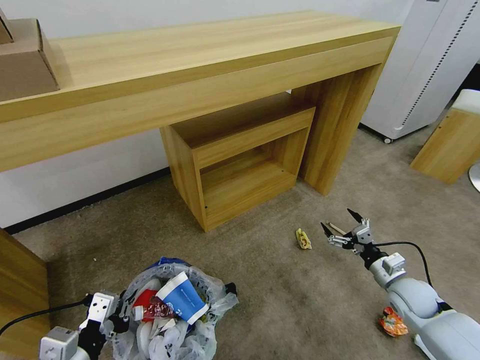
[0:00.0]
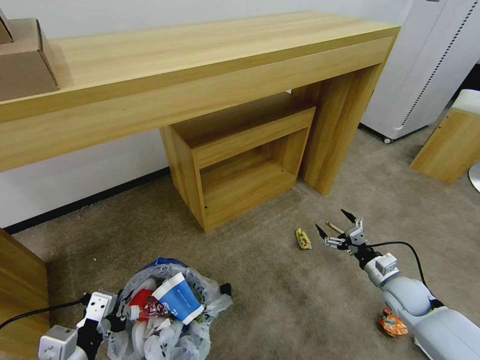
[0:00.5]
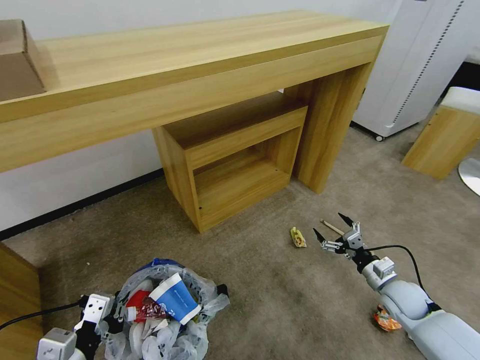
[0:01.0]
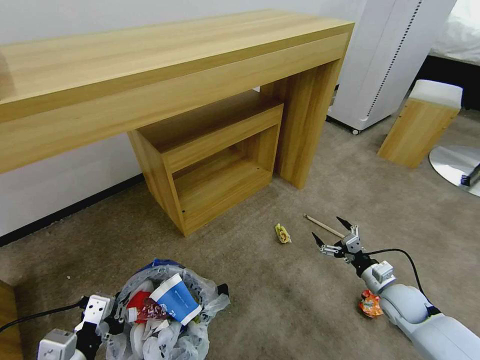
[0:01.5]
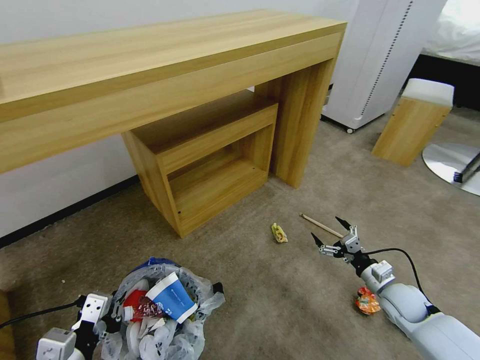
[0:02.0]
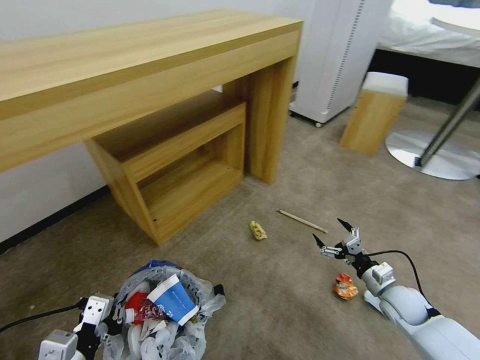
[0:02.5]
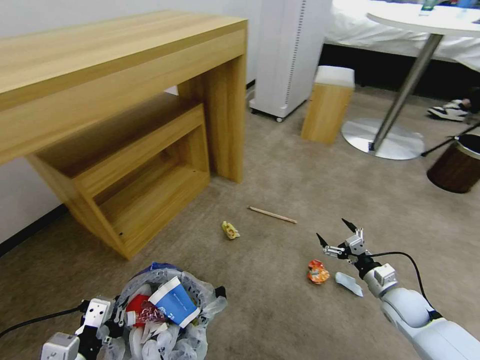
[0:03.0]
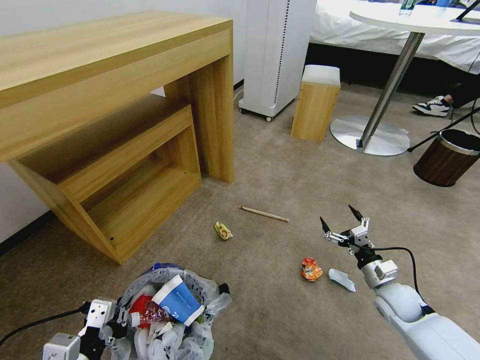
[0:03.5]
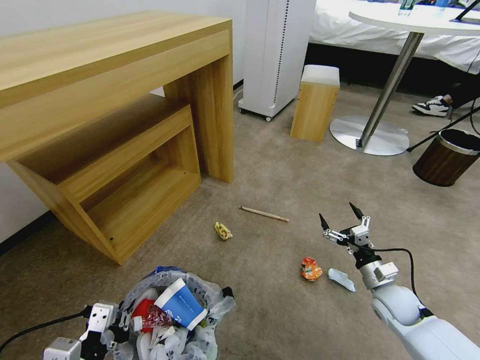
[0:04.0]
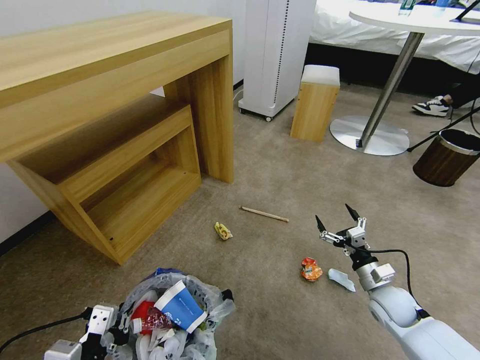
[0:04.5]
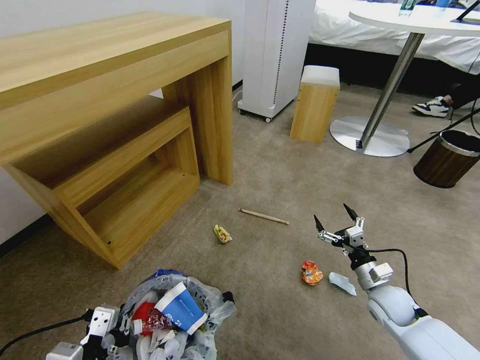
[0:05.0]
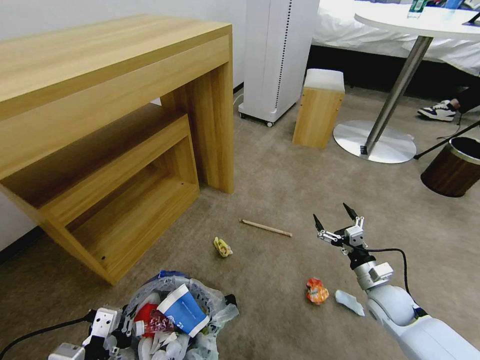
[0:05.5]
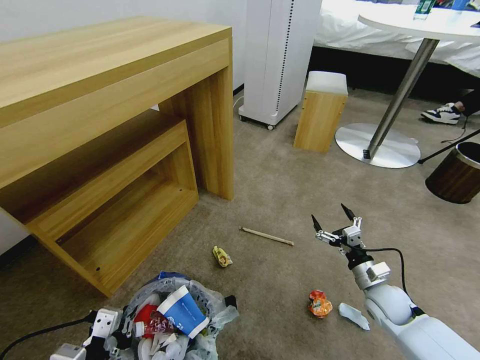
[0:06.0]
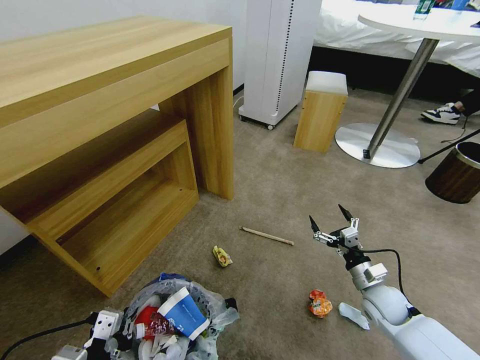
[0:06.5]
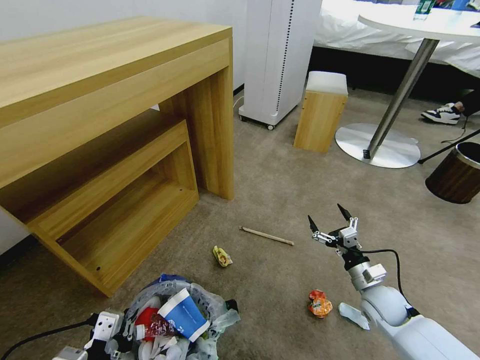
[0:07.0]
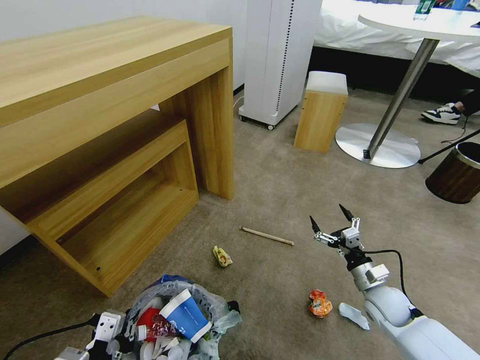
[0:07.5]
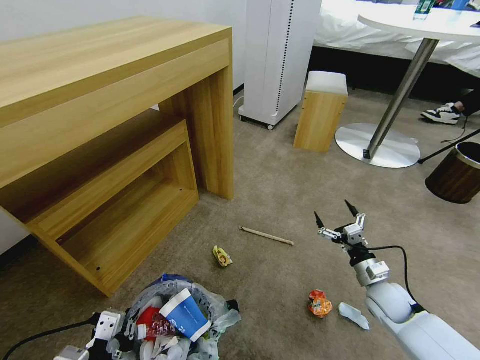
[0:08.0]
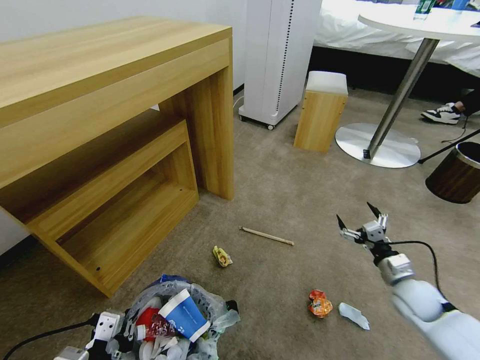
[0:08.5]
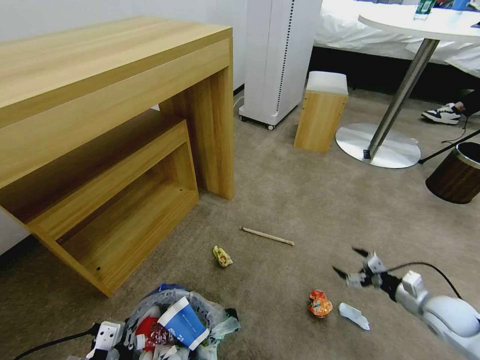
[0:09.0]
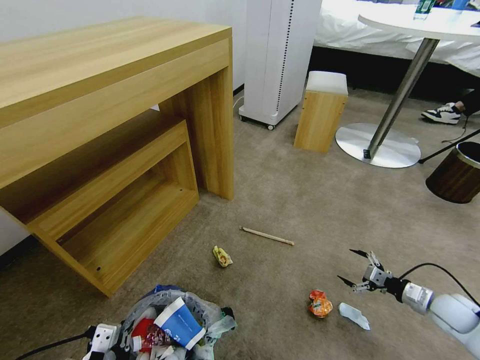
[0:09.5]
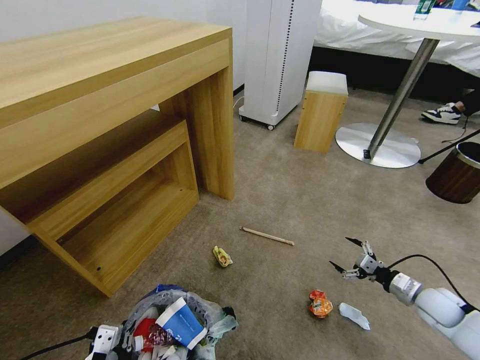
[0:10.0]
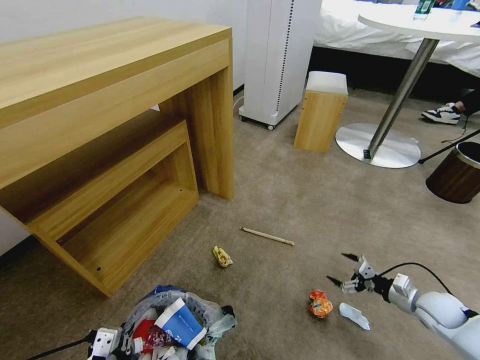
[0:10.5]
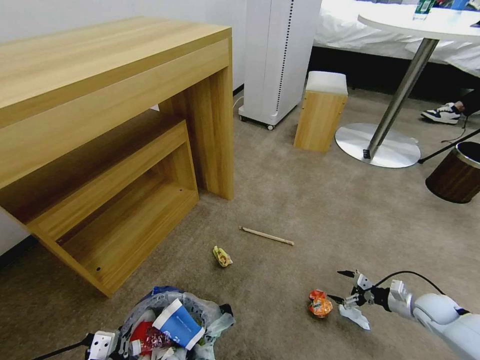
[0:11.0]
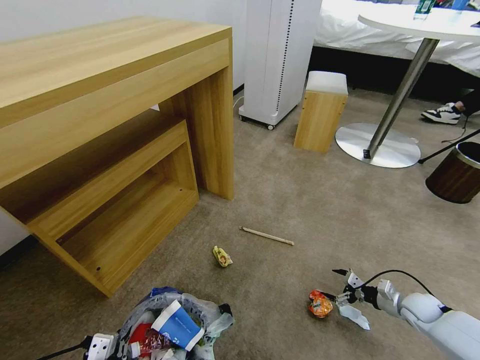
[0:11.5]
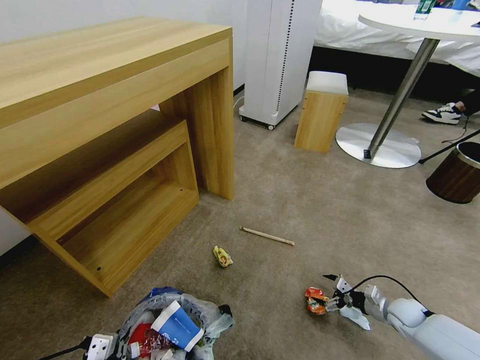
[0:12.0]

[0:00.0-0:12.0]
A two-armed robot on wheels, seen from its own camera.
Task of the whole recording: Pick up the trash bin and place the garbage on the floor into it.
0:06.0 to 0:08.0: The grippers move only a little.
0:08.0 to 0:10.0: The right gripper goes about 15 cm to the right.
0:10.0 to 0:12.0: The right gripper is displaced downward by about 10 cm.

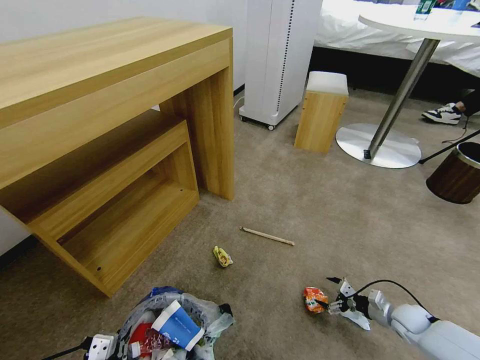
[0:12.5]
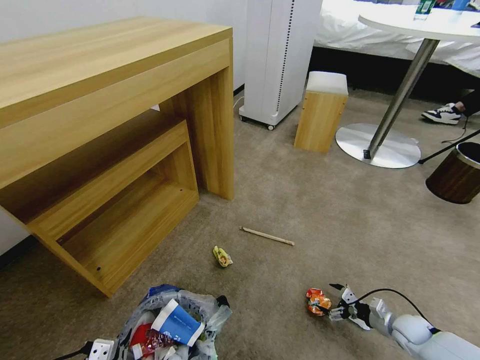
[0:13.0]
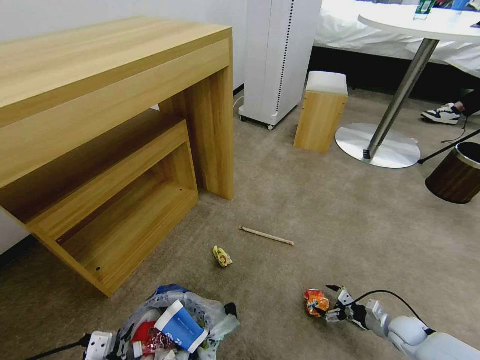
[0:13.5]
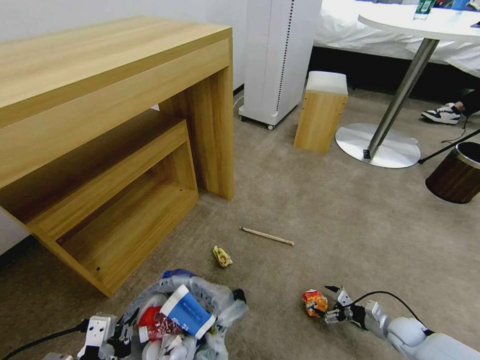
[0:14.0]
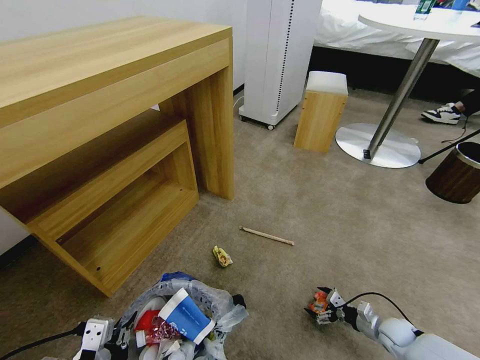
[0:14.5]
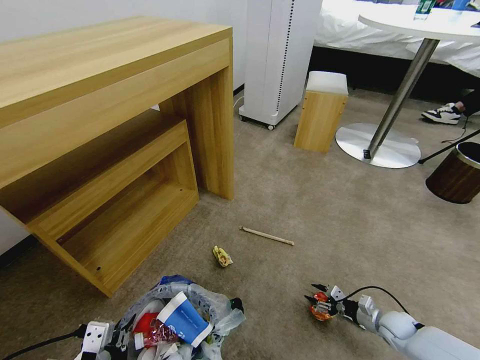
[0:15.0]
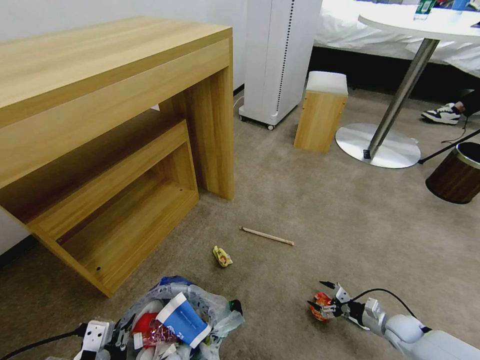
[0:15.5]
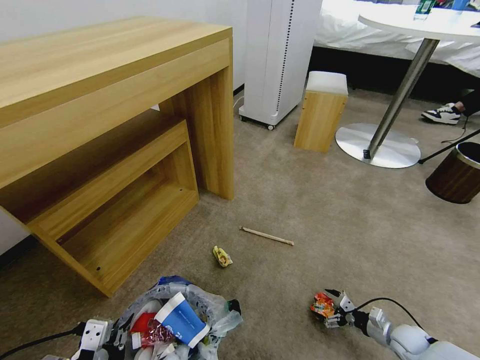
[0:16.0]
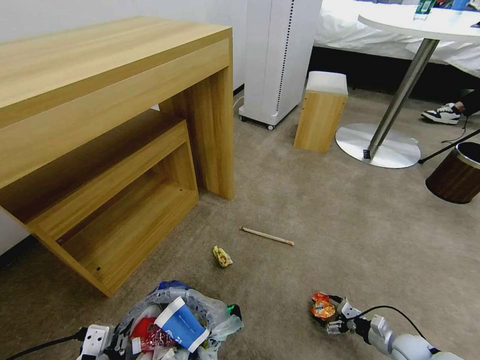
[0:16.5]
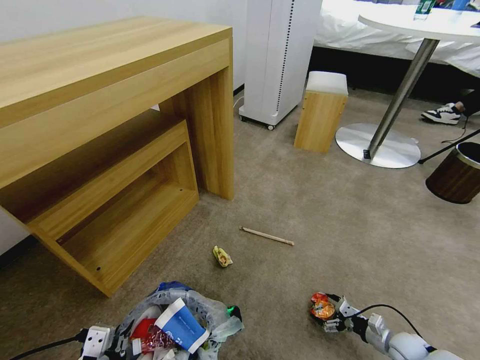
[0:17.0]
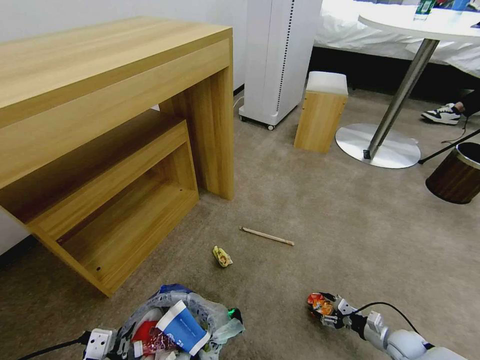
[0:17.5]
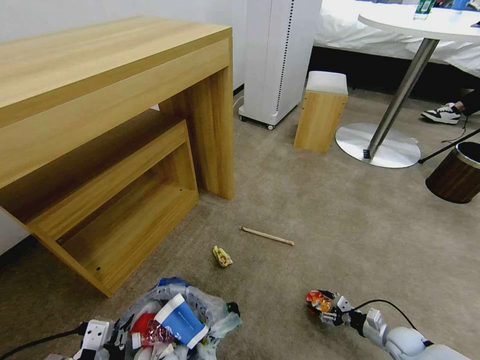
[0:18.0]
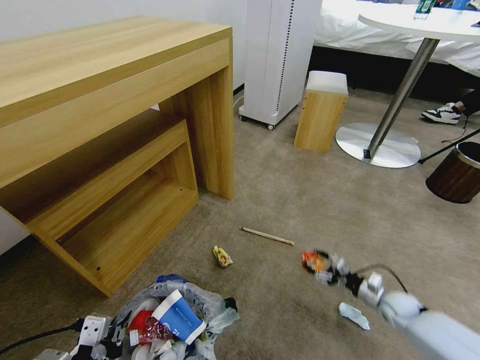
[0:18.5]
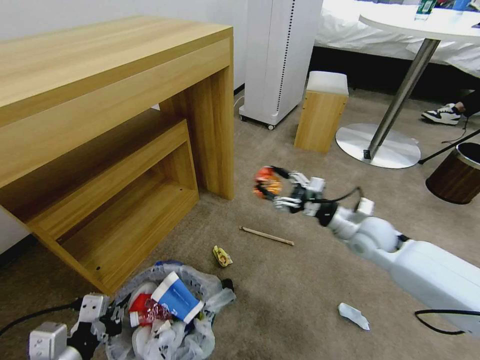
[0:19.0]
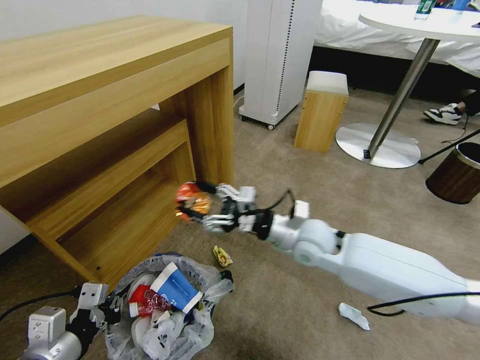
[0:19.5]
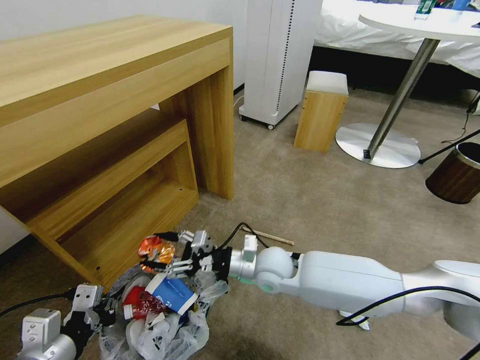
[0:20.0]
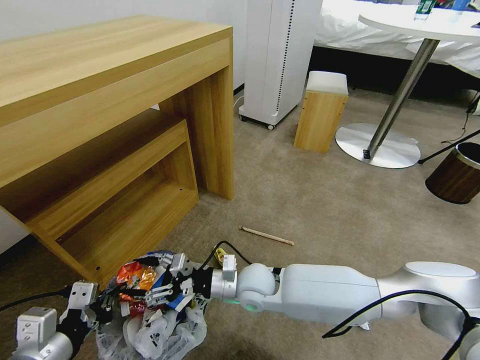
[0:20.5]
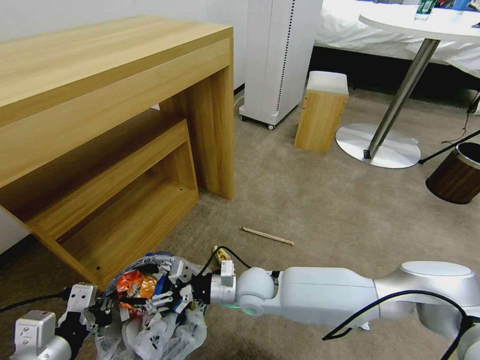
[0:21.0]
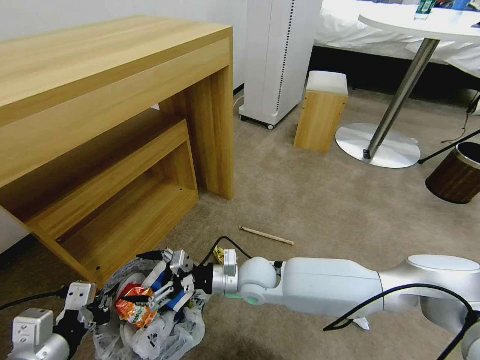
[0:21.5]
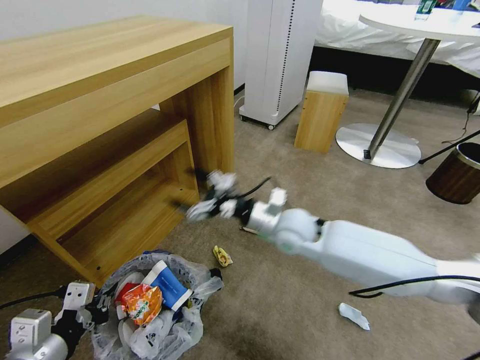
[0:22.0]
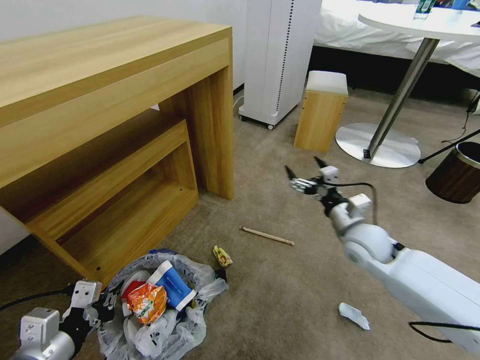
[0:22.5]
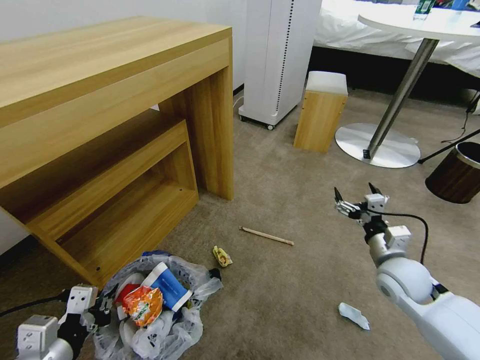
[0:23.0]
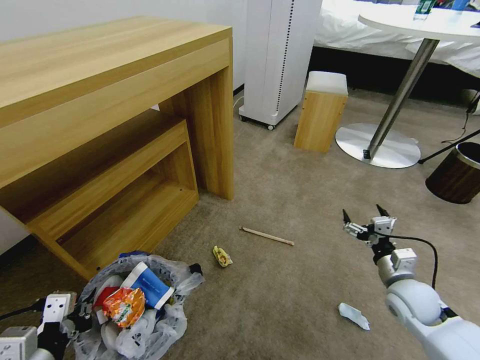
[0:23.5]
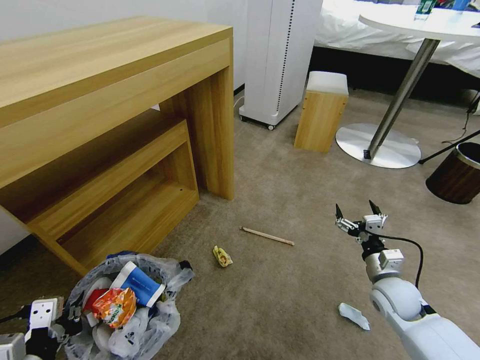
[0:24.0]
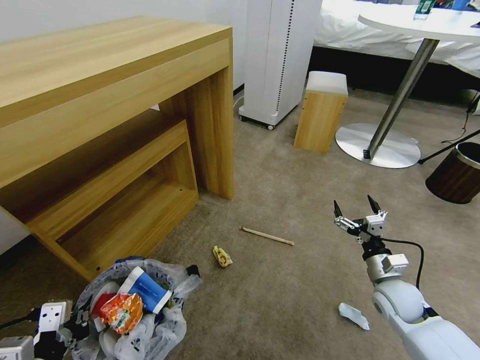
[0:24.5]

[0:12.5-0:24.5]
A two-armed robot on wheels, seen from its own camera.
Task of the whole recording: Pick up the trash bin and place the garbage on the floor into it.
0:12.5 to 0:14.5: The left gripper moves upward, approximately 5 cm. Meanwhile the right gripper changes place by some 5 cm.
0:14.5 to 0:16.5: The right gripper closes, then opens again.
0:16.5 to 0:18.5: The right gripper shifts about 15 cm forward and upward.
0:18.5 to 0:20.5: The right gripper shifts approximately 40 cm to the left; the left gripper moves roughly 5 cm.
0:20.5 to 0:22.5: The right gripper shifts roughly 25 cm to the right.
0:22.5 to 0:24.5: The right gripper travels downward, backward and to the right by about 15 cm.

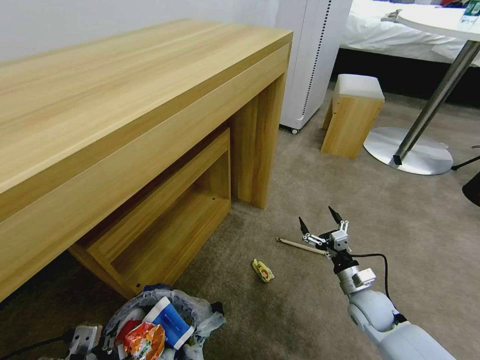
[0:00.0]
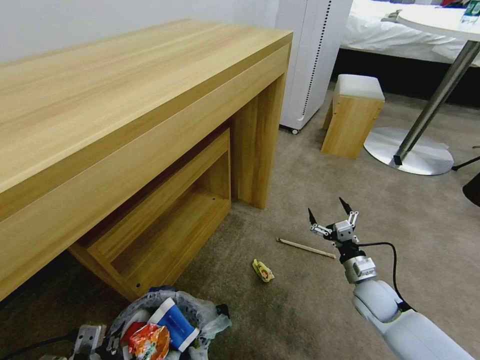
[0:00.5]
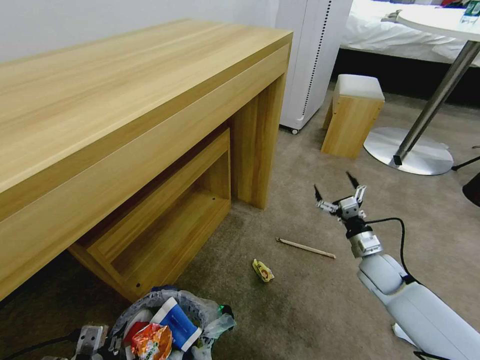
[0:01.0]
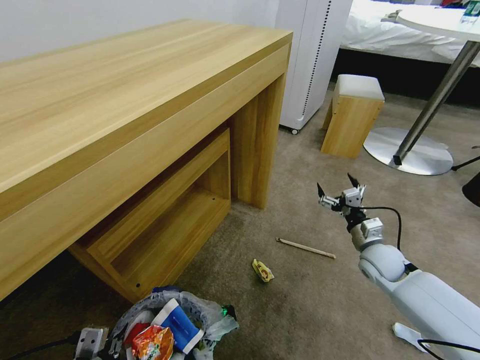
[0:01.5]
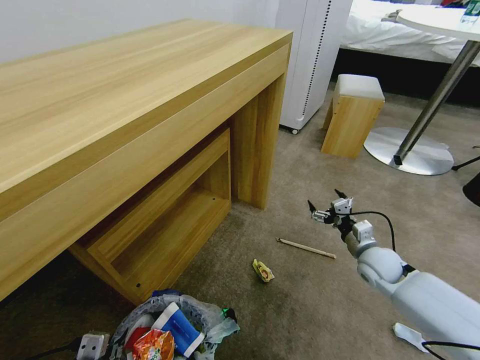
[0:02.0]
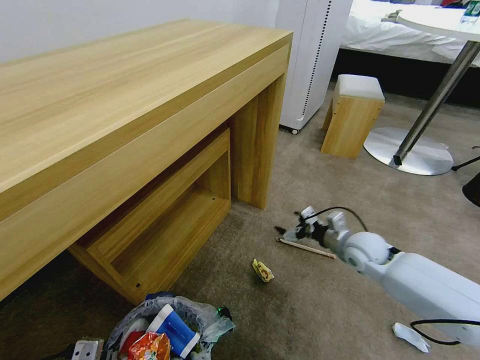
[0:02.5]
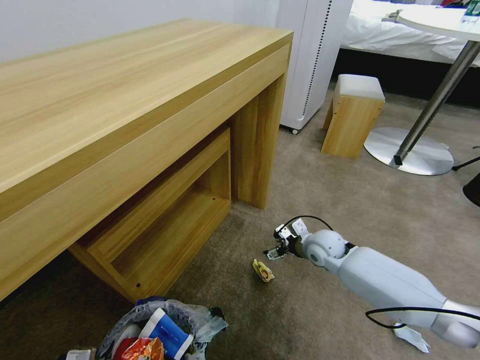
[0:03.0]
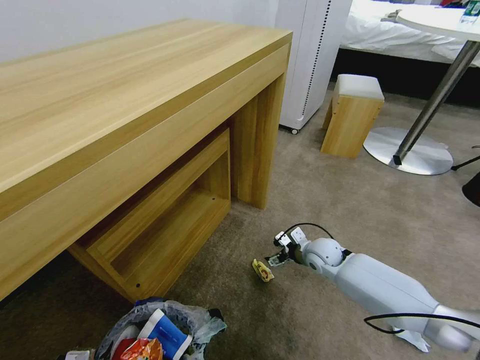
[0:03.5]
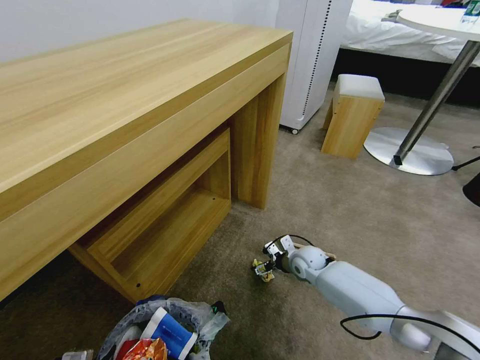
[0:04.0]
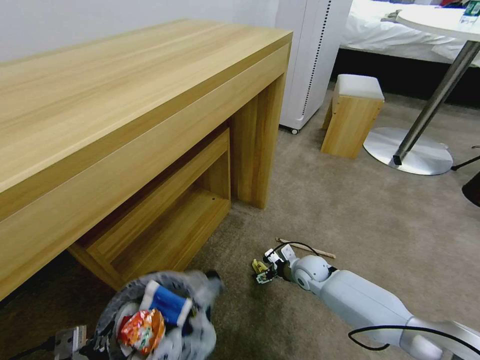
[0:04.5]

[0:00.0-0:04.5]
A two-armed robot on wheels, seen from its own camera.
Task of the whole recording: Pick up the trash bin and place the garbage on the floor into it.
0:00.0 to 0:02.0: The right gripper travels forward and upward by roughly 10 cm.
0:02.0 to 0:04.5: The right gripper shifts about 20 cm to the left and downward.
